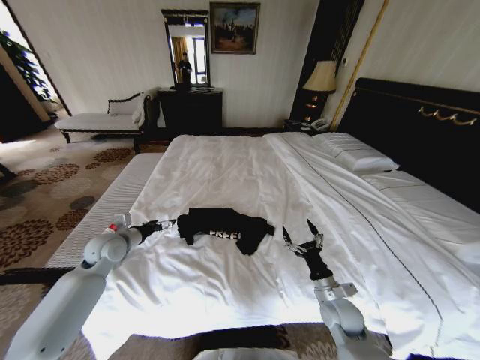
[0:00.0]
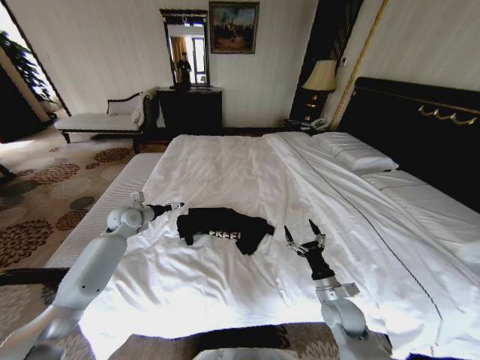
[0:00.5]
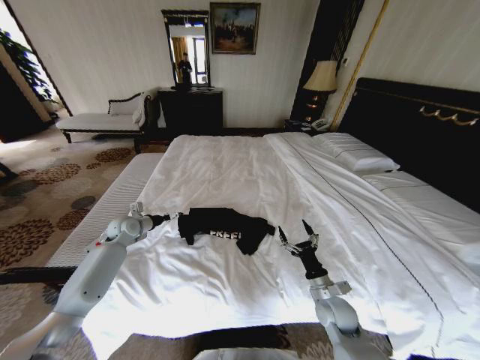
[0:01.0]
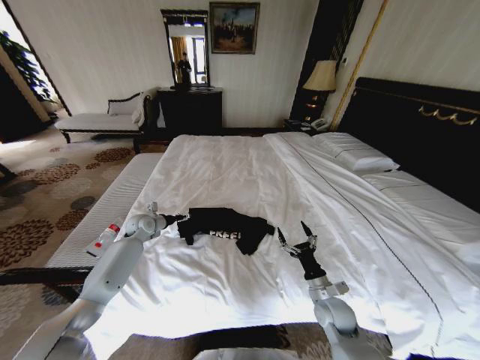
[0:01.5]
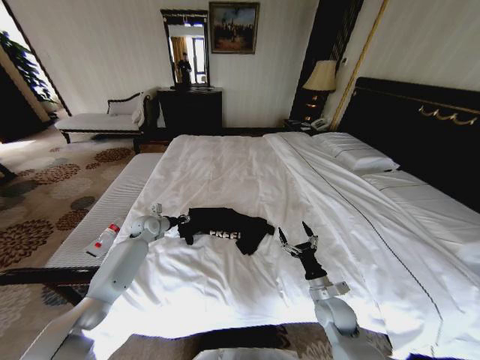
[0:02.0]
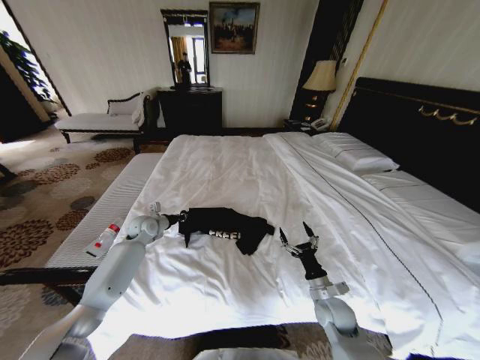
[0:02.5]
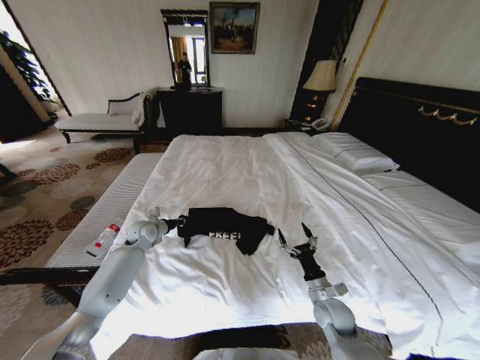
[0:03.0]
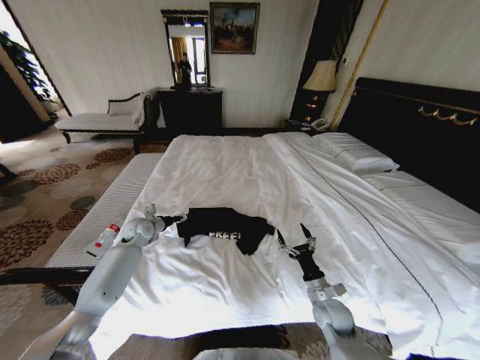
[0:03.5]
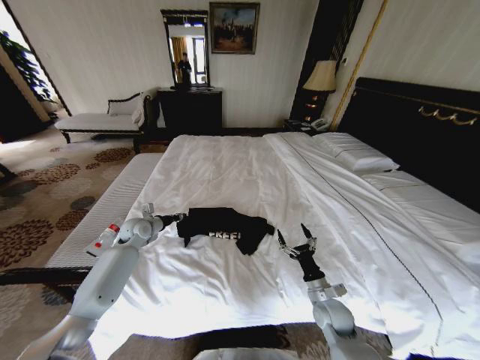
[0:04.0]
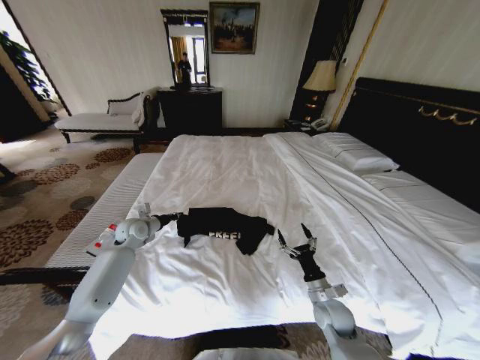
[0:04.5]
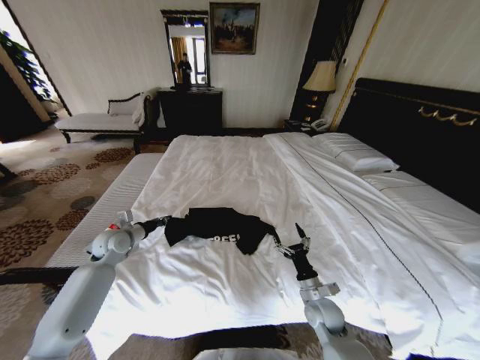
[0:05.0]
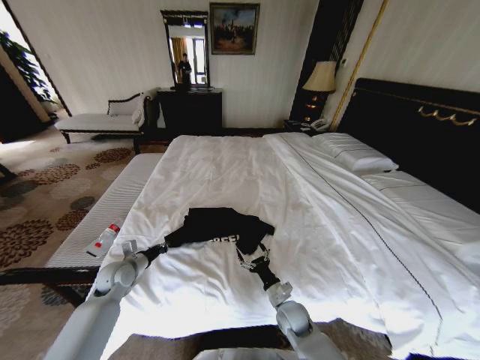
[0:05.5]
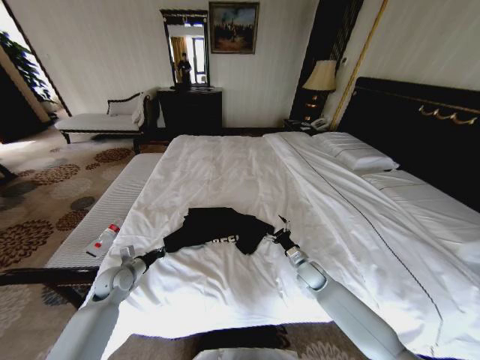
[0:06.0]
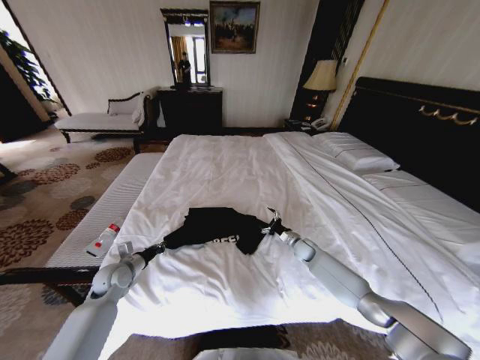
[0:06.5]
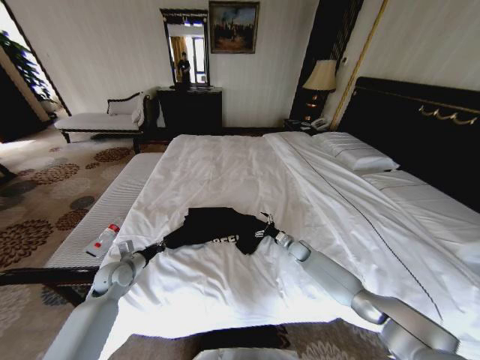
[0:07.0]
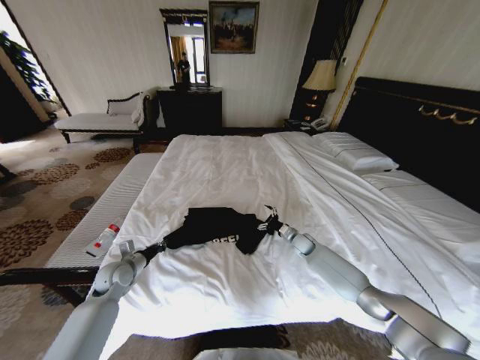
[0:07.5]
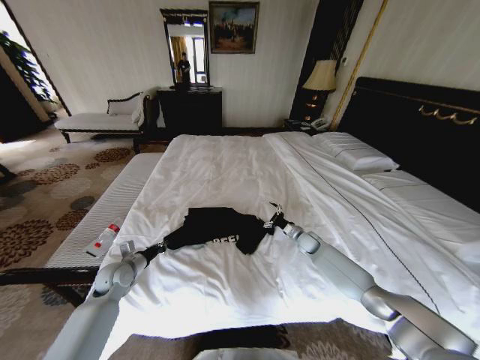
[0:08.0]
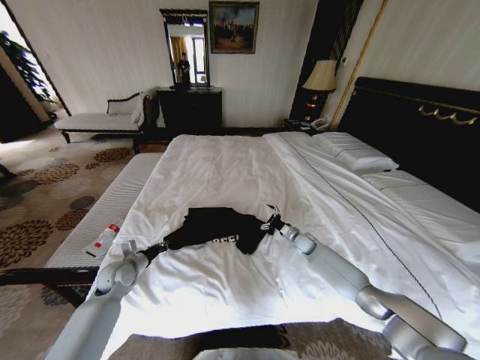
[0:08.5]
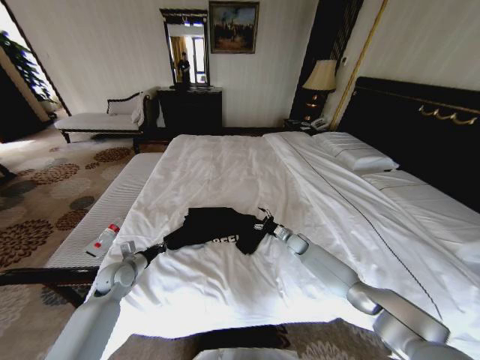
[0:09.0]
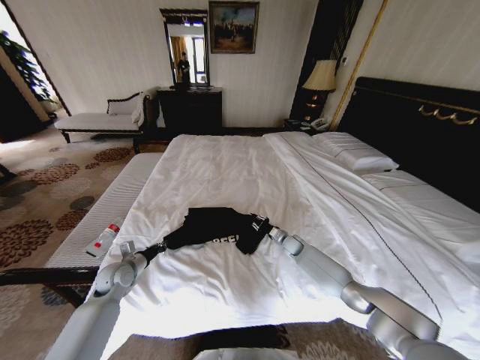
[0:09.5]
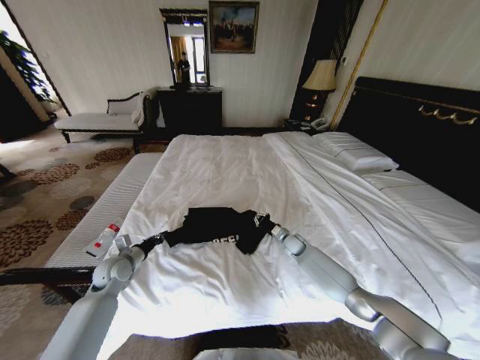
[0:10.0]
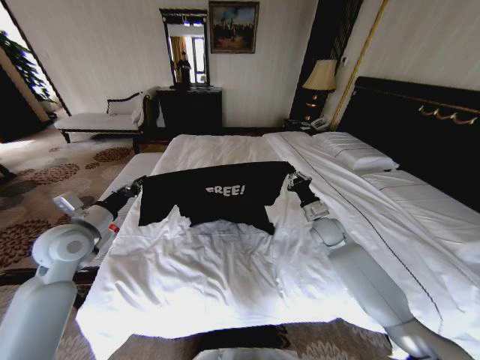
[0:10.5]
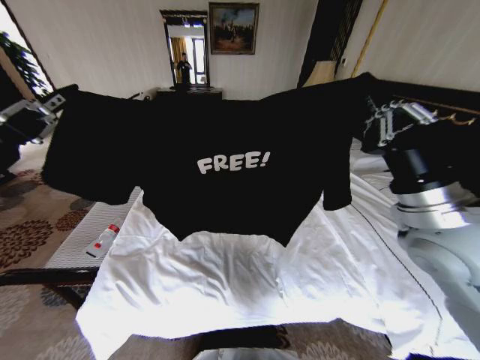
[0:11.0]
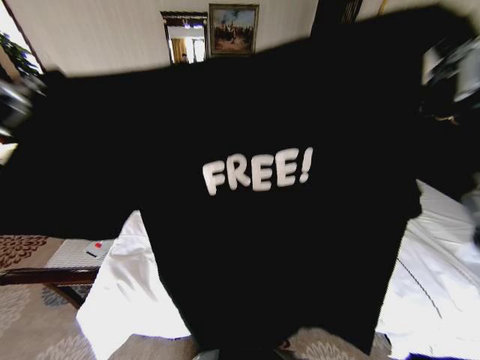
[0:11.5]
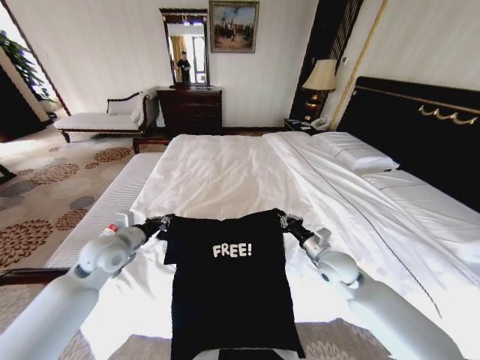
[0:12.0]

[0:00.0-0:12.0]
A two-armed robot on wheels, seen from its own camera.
Task of the whole recording: Fold the clothes on the bed.
0:00.0 to 0:02.0: The left gripper heads forward and downward, covering about 15 cm, and closes up.
0:02.0 to 0:04.0: The grippers make only small movements.
0:04.0 to 0:06.0: The right gripper shifts roughly 10 cm forward. Meanwhile the left gripper goes roughly 15 cm backward and downward.
0:06.0 to 0:08.0: The right gripper travels forward by some 15 cm.
0:08.0 to 0:10.0: The right gripper goes some 5 cm to the left, and closes its fingers.
0:10.0 to 0:12.0: The right gripper travels backward by some 15 cm, and travels upward and back again, some 50 cm each way, while the left gripper travels upward and back again, roughly 40 cm each way.

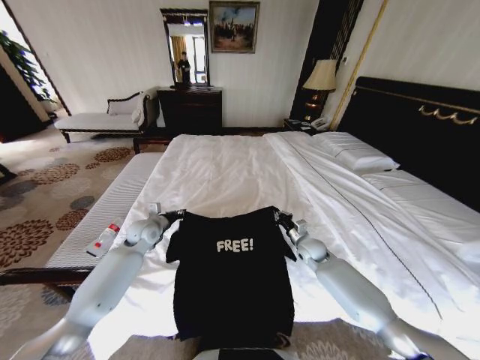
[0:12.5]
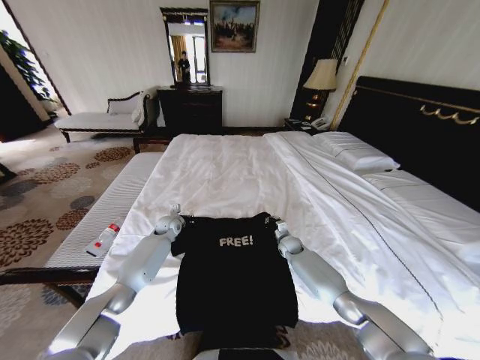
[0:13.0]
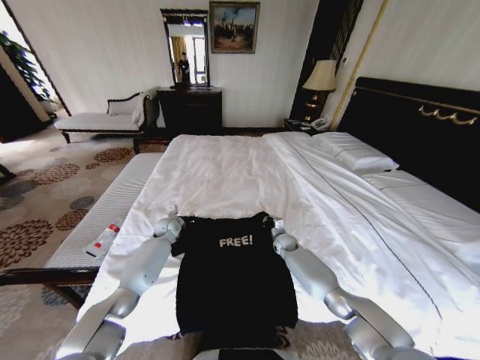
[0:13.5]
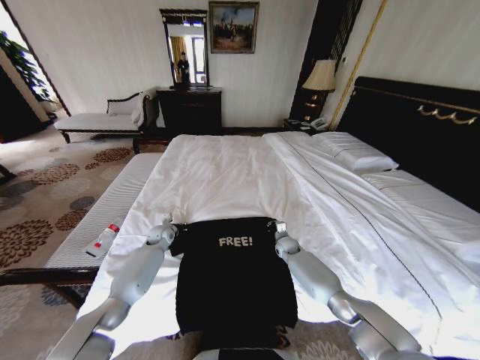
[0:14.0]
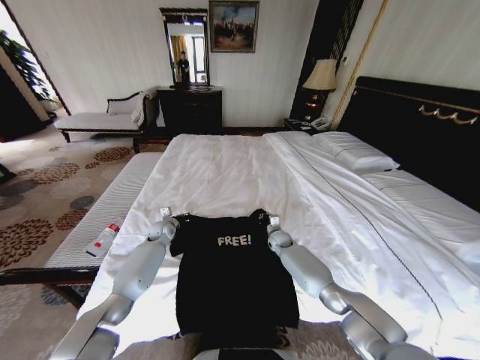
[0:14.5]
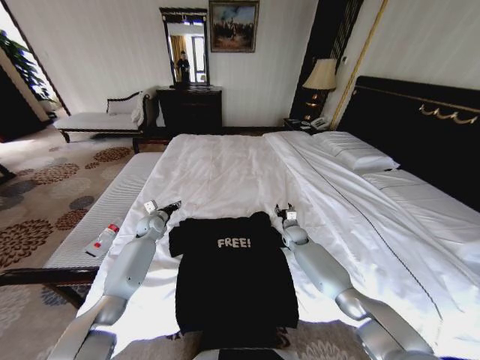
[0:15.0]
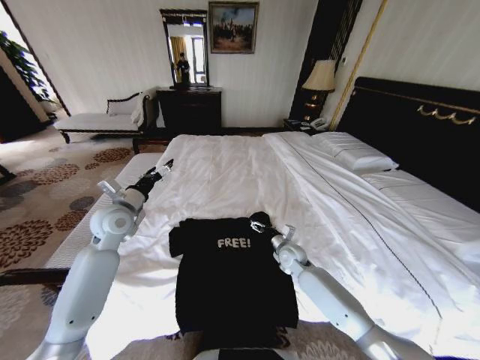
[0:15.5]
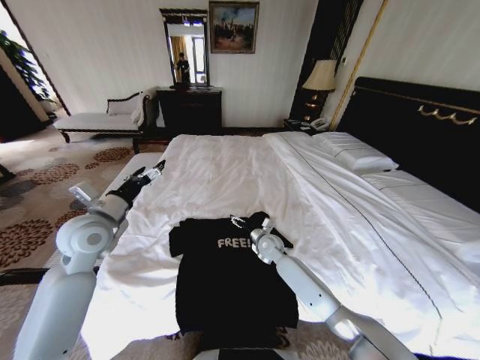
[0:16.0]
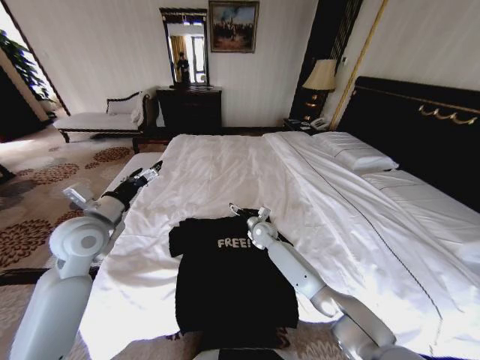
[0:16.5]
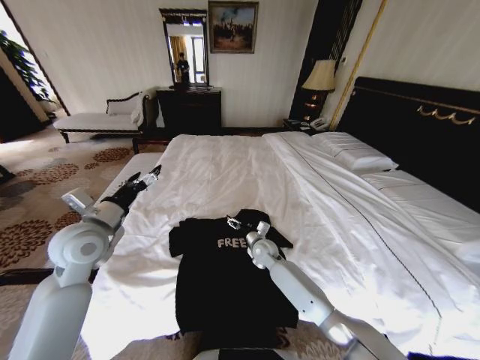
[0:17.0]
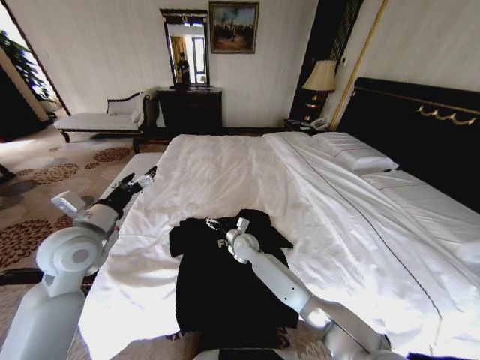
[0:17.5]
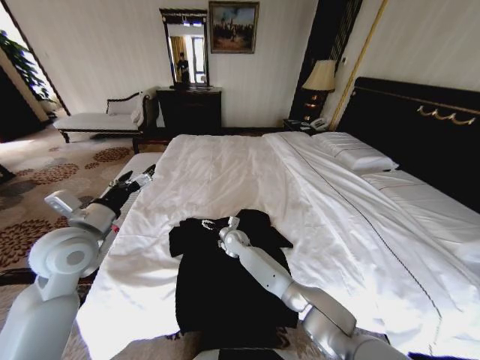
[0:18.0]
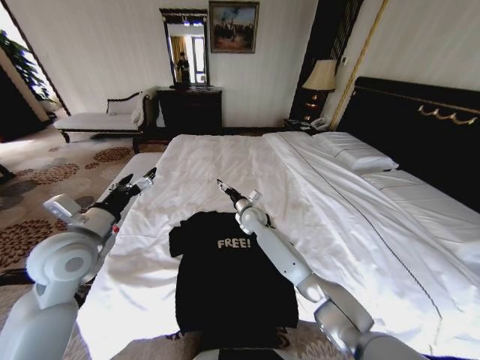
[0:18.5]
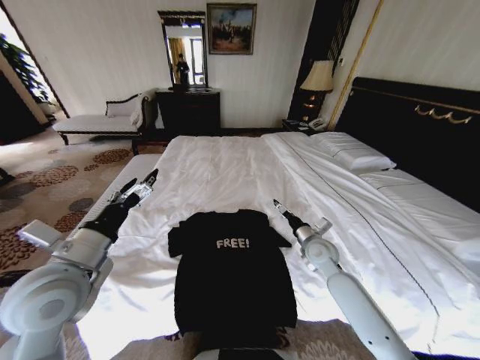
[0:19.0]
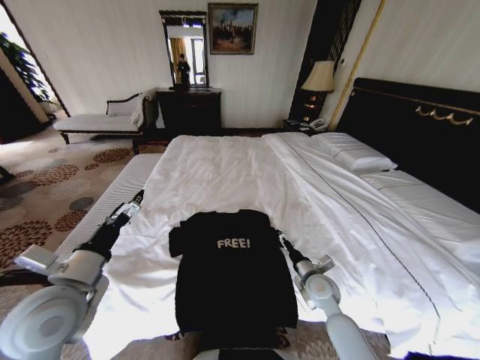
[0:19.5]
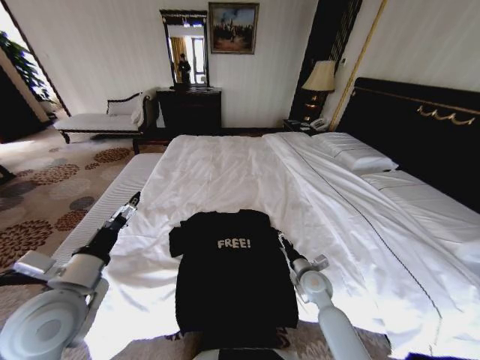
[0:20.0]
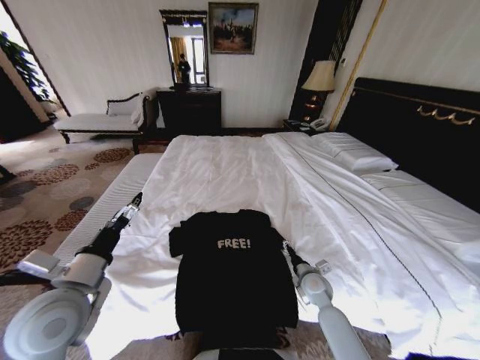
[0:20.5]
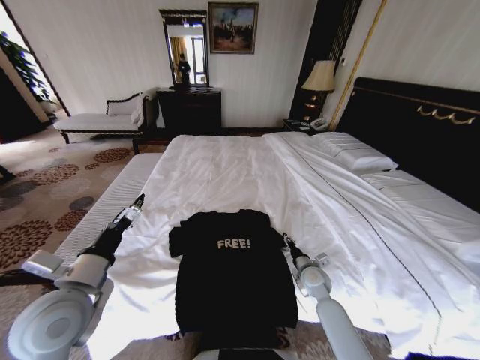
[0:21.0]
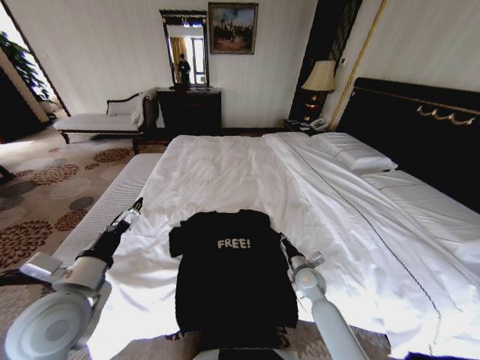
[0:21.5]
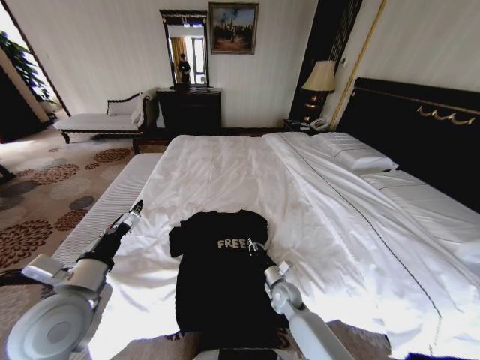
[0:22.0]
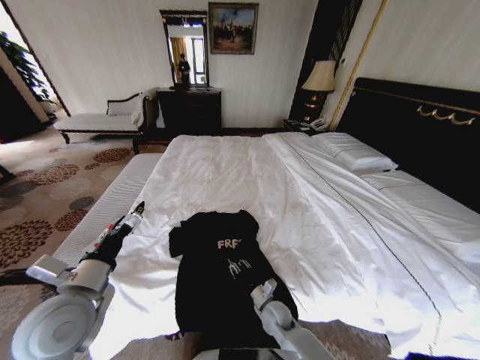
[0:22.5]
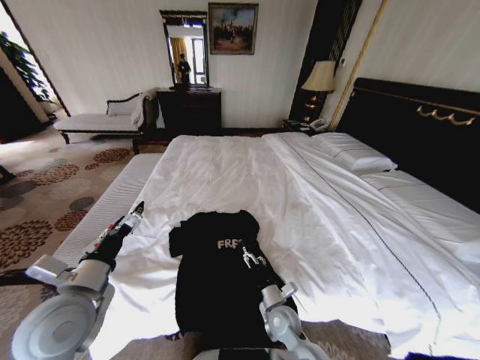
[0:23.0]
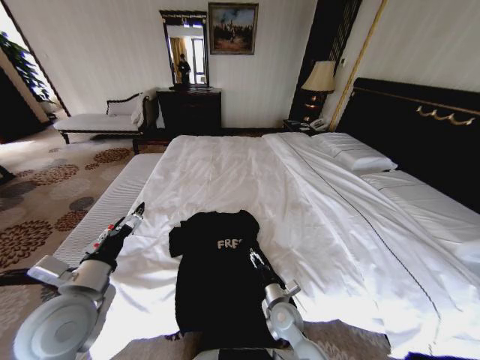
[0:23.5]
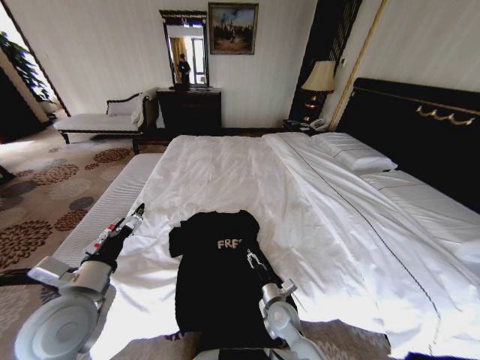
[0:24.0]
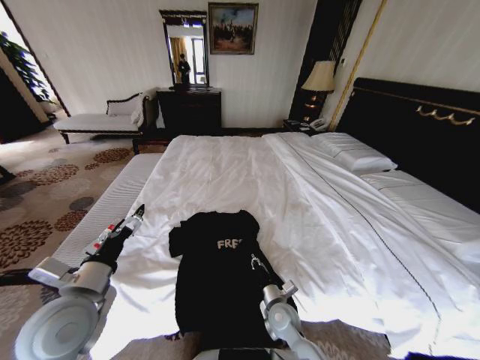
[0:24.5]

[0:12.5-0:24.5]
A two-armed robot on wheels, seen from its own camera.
Task of the whole recording: Fold the clothes on the bed.
0:12.5 to 0:14.5: The left gripper goes about 10 cm downward and forward. Meanwhile the right gripper moves forward, to the left and downward, approximately 15 cm.
0:14.5 to 0:16.5: The right gripper is displaced to the left and upward by some 10 cm, and opens its fingers; the left gripper is displaced upward and backward by some 30 cm, and opens up.
0:16.5 to 0:18.5: The right gripper heads upward, covering some 5 cm.
0:18.5 to 0:20.5: The left gripper is displaced backward by roughly 10 cm. Meanwhile the right gripper shifts approximately 30 cm backward, to the right and downward.
0:20.5 to 0:22.5: The right gripper shifts some 15 cm to the left, downward and backward, and closes.
0:22.5 to 0:24.5: The right gripper shifts by some 5 cm, and opens, then closes once more.

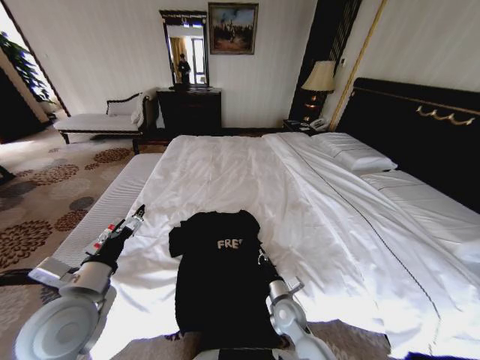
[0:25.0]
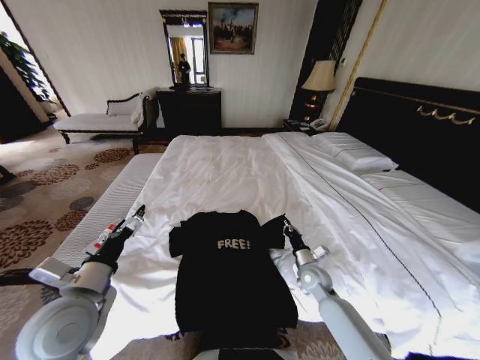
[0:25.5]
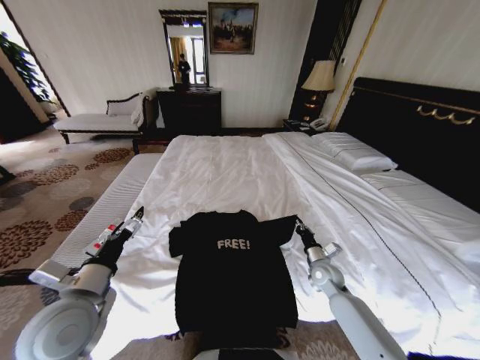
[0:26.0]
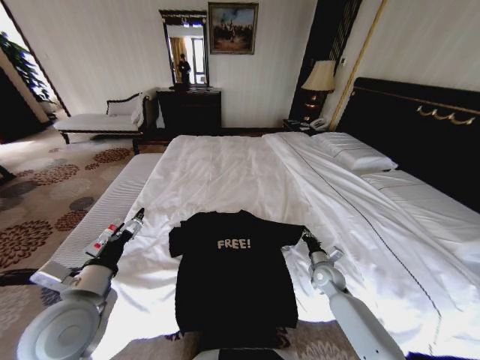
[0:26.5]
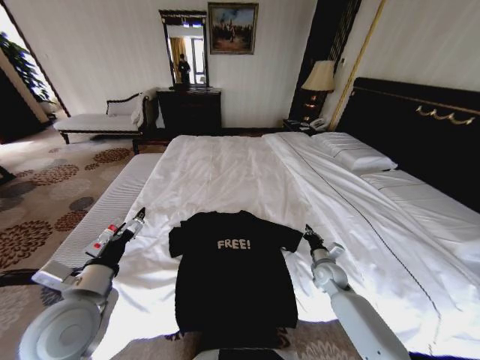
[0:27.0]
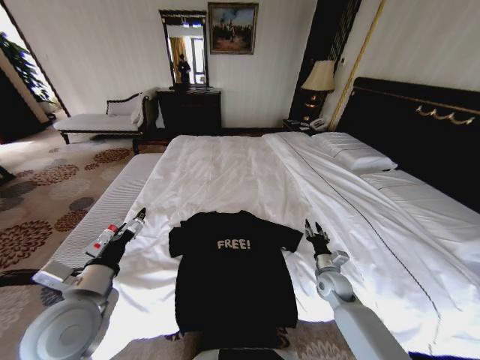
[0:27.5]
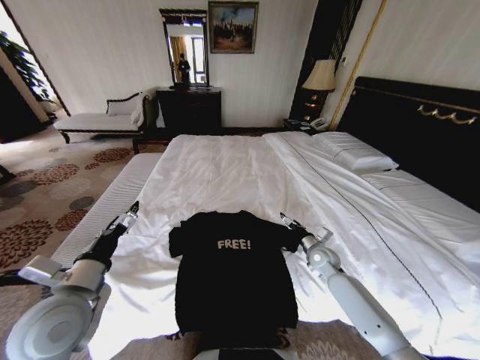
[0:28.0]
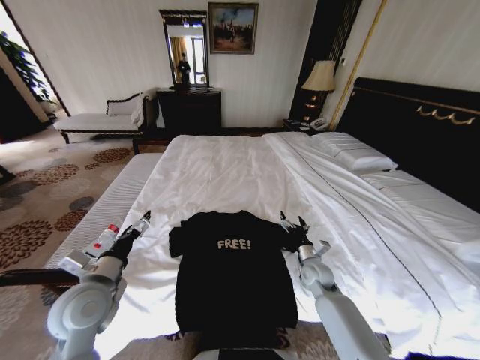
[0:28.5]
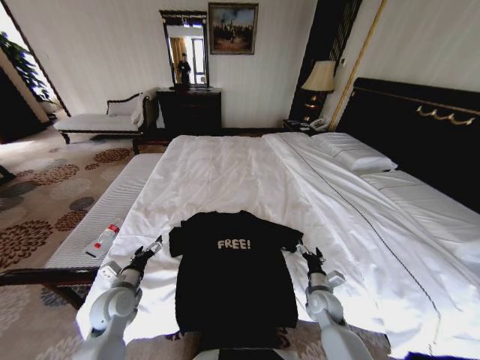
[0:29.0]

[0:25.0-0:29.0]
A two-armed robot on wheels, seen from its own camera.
Task of the whole recording: Fold the clothes on the bed.
0:25.0 to 0:27.0: The right gripper moves to the right and forward, some 20 cm.
0:27.0 to 0:29.0: The left gripper goes about 15 cm downward and forward. Meanwhile the right gripper moves backward, about 10 cm, and opens up.
